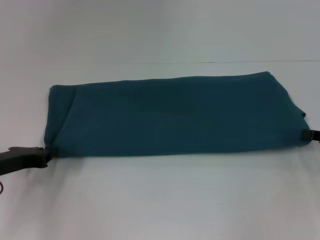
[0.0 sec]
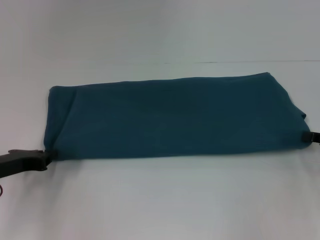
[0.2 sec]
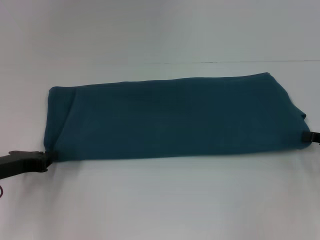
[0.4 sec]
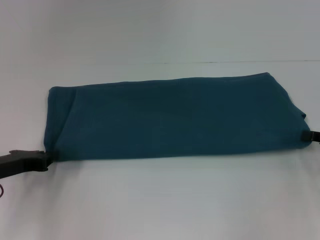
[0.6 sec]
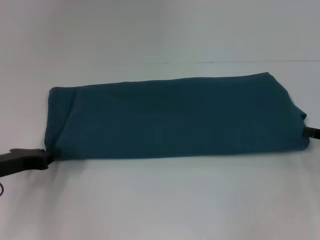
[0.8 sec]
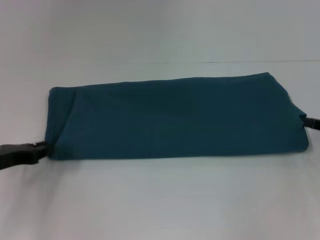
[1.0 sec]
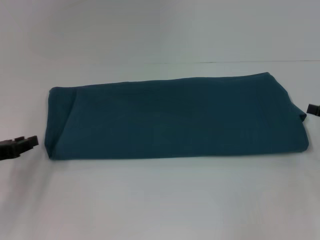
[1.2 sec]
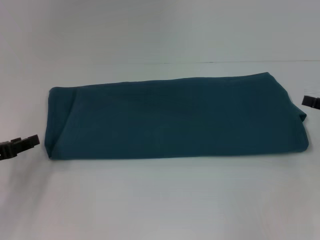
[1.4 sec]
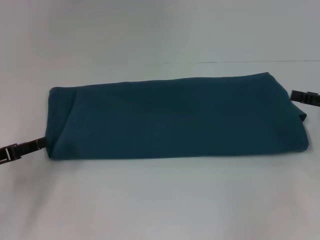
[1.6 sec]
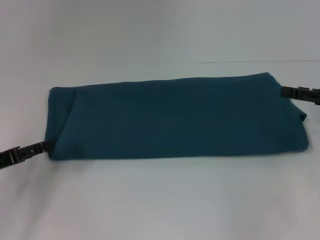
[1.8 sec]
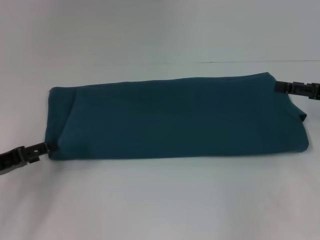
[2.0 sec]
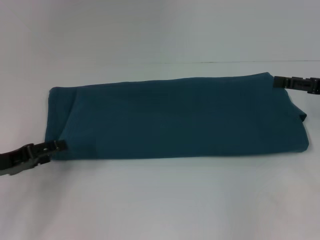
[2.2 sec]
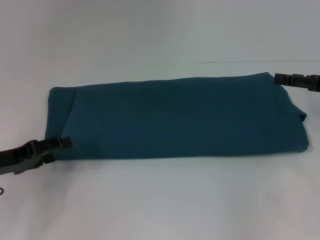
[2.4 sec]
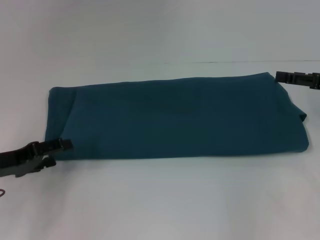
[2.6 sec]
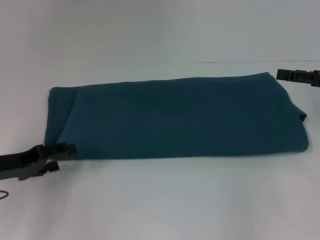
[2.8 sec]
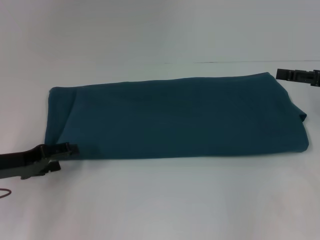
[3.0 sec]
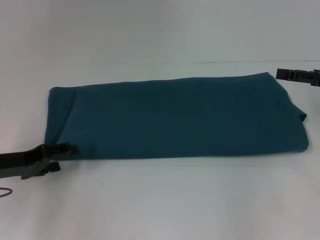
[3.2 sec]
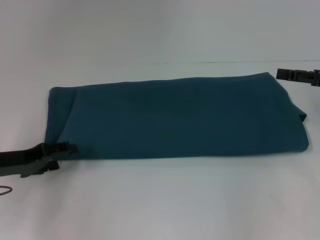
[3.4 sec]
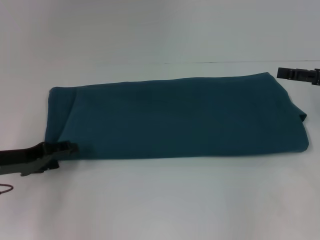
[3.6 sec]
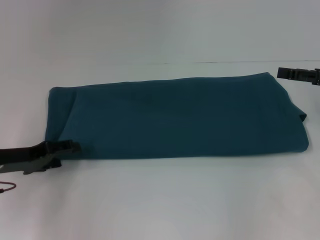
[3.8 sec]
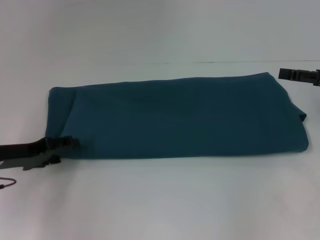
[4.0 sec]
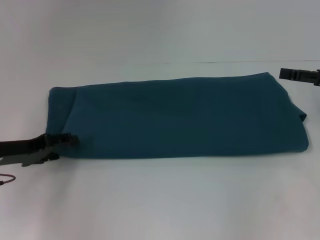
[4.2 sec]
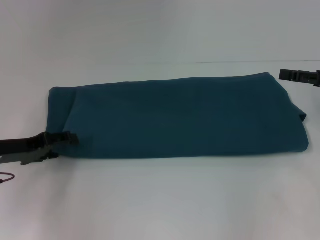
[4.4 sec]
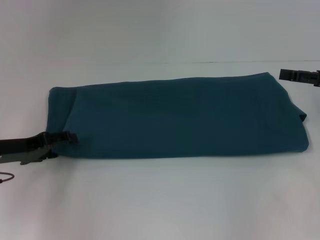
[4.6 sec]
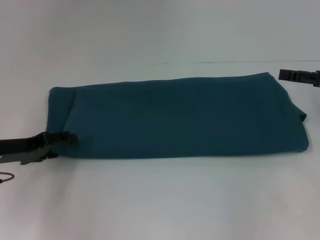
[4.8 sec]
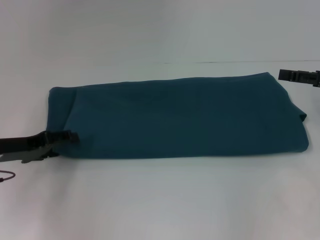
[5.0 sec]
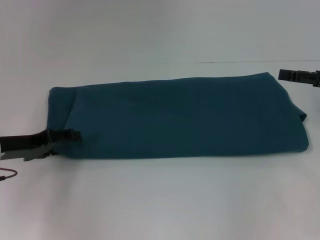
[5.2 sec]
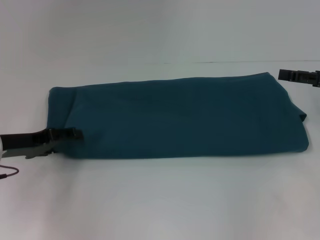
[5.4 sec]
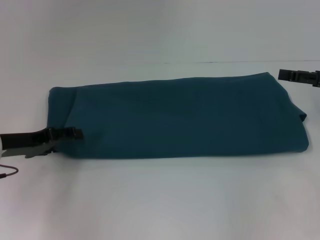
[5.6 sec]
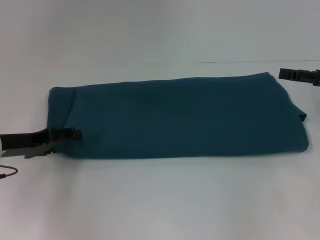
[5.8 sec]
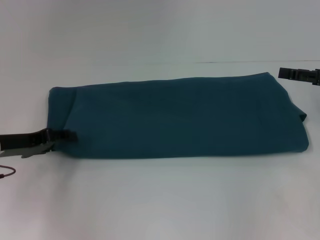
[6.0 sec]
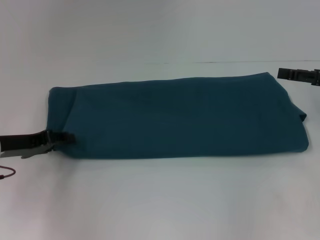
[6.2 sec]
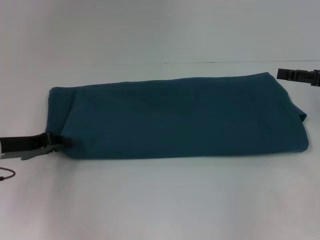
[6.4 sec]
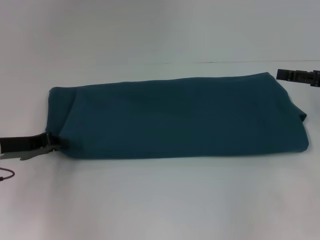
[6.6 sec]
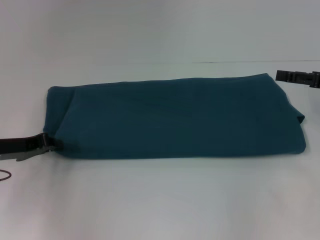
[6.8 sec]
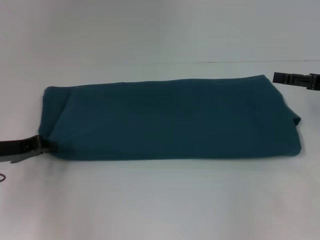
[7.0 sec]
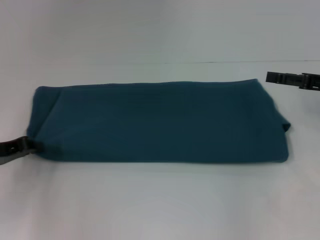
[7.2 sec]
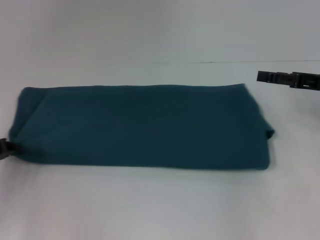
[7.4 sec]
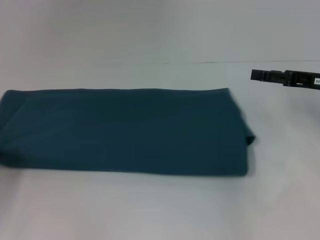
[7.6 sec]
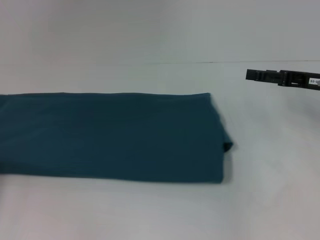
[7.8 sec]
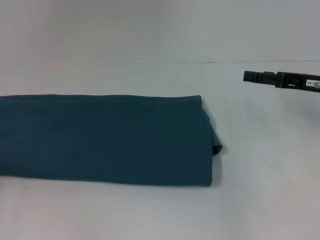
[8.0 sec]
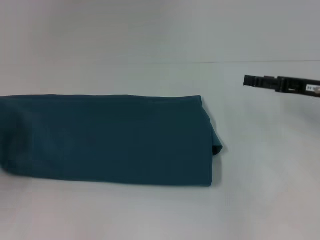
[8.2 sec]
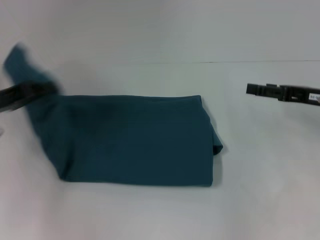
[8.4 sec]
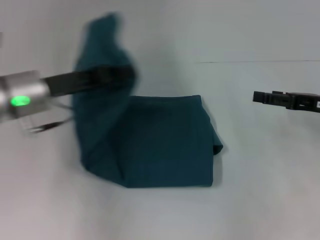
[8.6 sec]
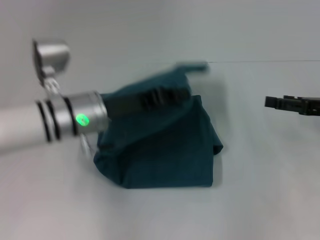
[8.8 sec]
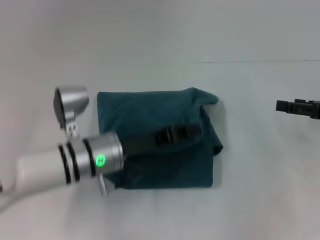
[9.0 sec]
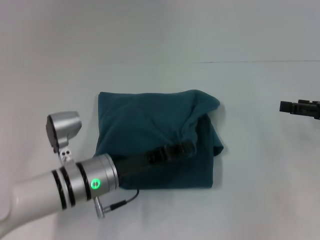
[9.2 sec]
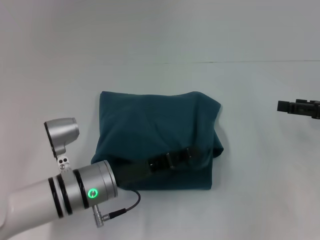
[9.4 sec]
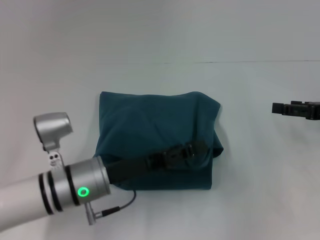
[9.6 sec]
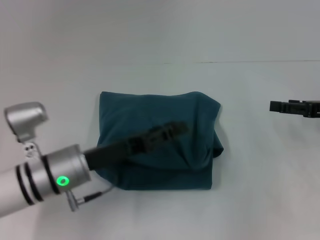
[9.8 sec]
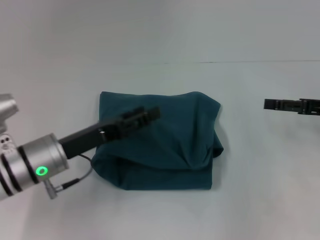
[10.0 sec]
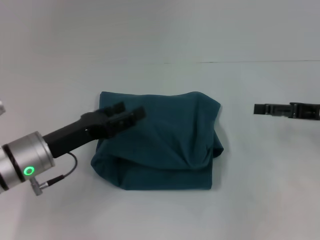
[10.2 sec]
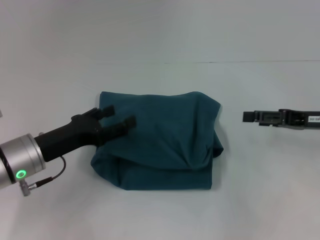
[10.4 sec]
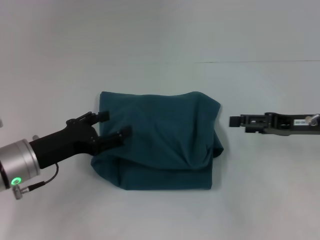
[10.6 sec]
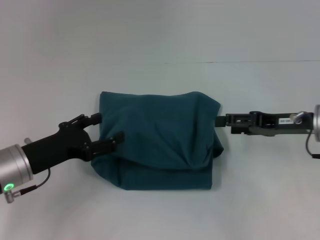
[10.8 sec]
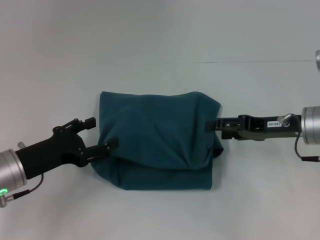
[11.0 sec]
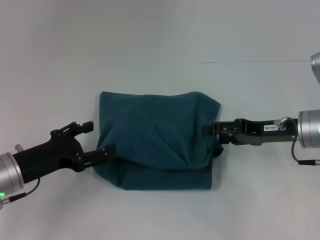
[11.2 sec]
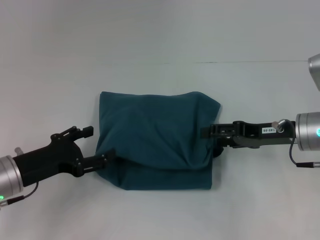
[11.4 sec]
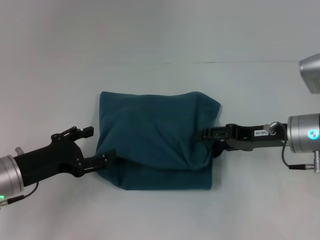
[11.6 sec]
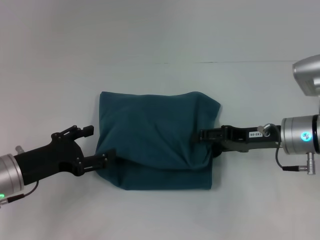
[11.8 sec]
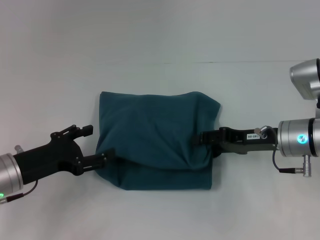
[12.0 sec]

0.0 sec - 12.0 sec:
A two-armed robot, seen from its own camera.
Step, 0.0 sec - 9.4 sec: Fold the clothes to the left.
0.0 sec - 1.6 sec: The right gripper shifts by some 5 cm, and opens. Meanwhile the left gripper opens.
3.0 sec - 4.4 sec: The grippers stay close to where they were, moving slightly.
4.4 sec - 6.0 sec: Both grippers stay put.
6.0 sec - 7.6 sec: The left gripper heads to the left and backward, covering roughly 10 cm, and closes its fingers.
7.6 sec - 9.0 sec: The left gripper heads to the right, covering about 25 cm; the right gripper moves about 5 cm.
9.0 sec - 10.4 sec: The left gripper shifts about 10 cm to the left, and opens its fingers.
10.4 sec - 12.0 sec: The right gripper heads to the left, covering approximately 10 cm.

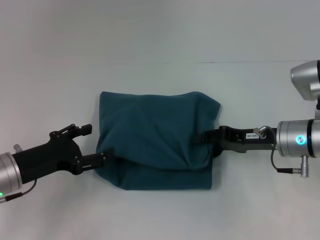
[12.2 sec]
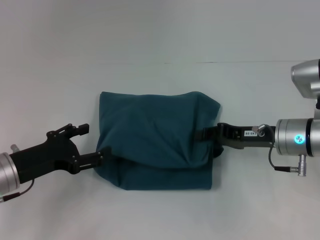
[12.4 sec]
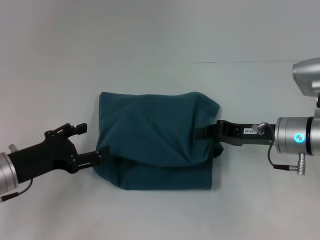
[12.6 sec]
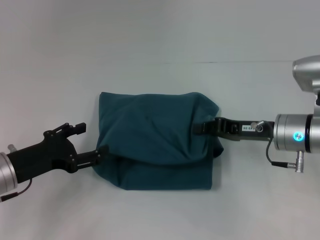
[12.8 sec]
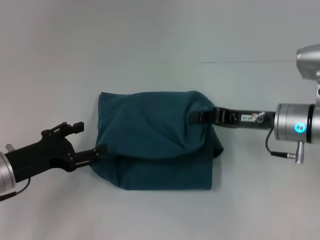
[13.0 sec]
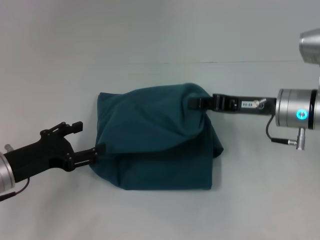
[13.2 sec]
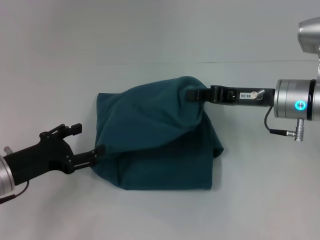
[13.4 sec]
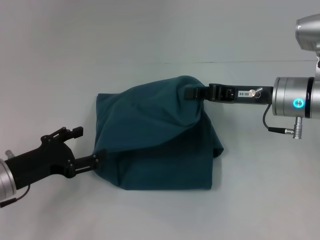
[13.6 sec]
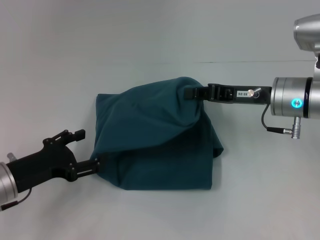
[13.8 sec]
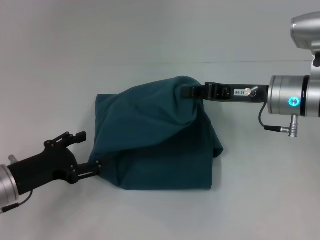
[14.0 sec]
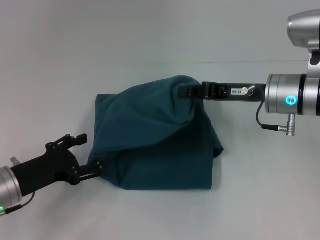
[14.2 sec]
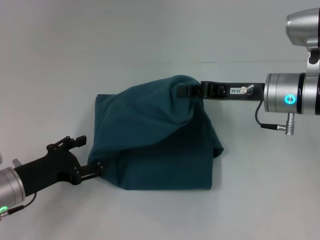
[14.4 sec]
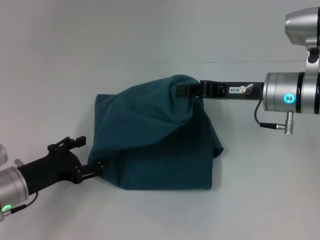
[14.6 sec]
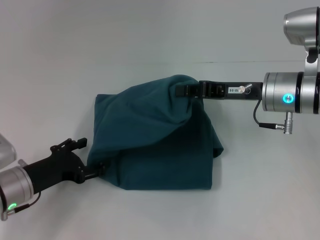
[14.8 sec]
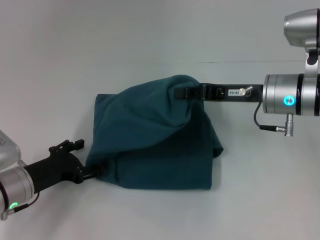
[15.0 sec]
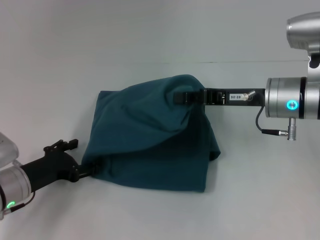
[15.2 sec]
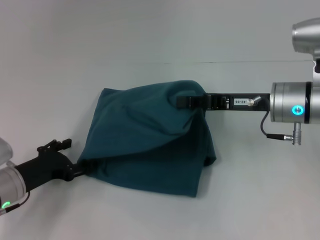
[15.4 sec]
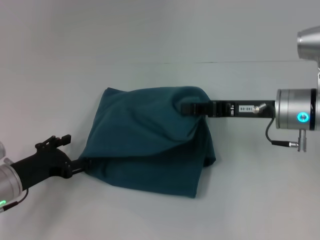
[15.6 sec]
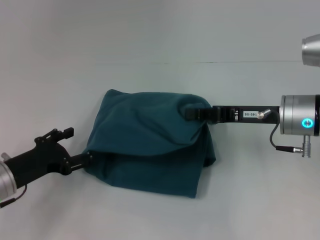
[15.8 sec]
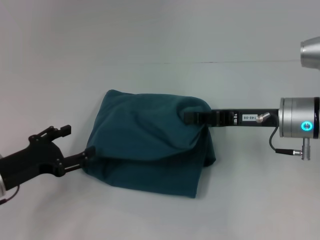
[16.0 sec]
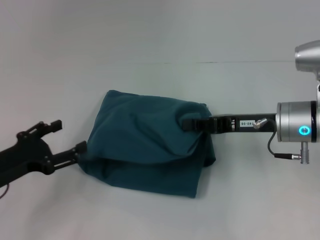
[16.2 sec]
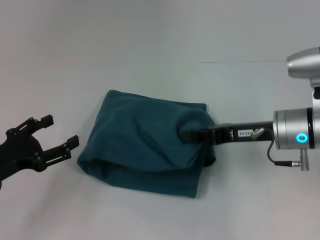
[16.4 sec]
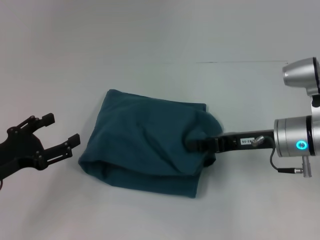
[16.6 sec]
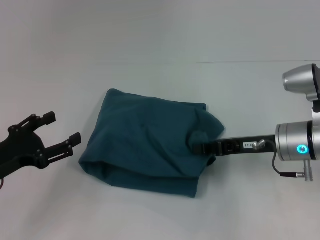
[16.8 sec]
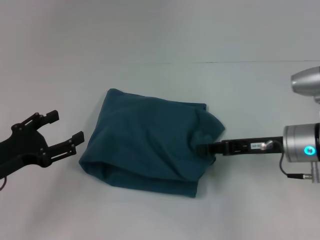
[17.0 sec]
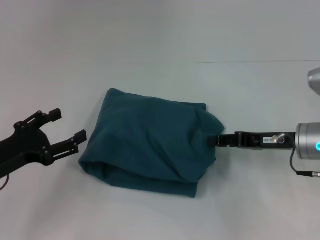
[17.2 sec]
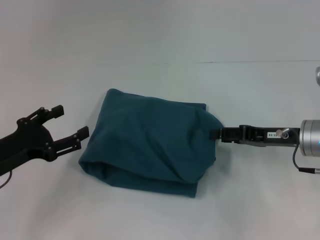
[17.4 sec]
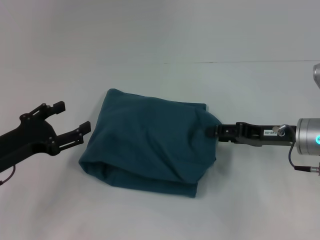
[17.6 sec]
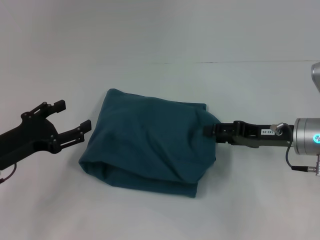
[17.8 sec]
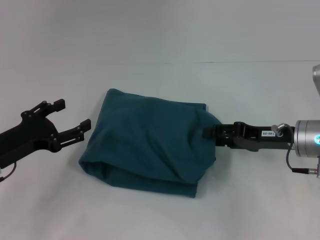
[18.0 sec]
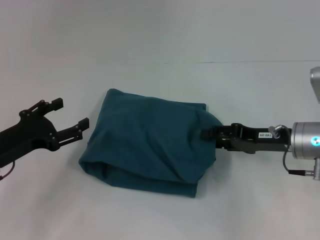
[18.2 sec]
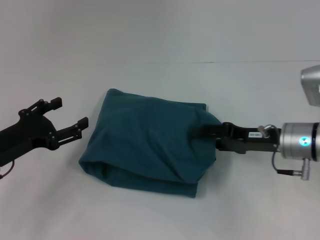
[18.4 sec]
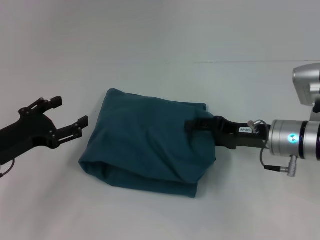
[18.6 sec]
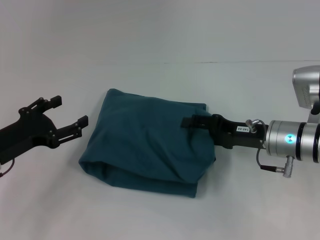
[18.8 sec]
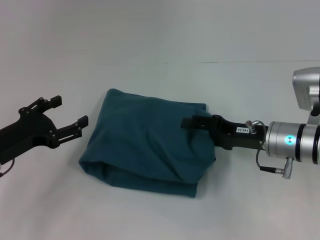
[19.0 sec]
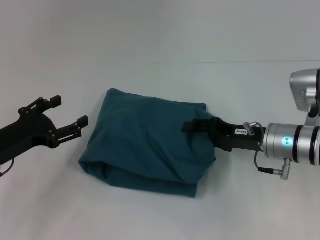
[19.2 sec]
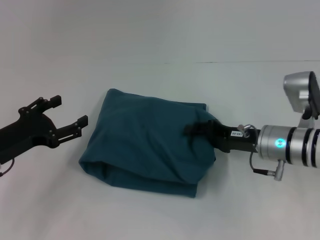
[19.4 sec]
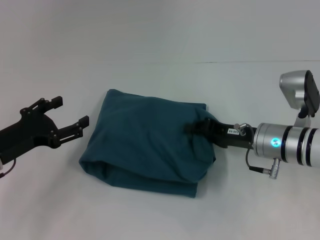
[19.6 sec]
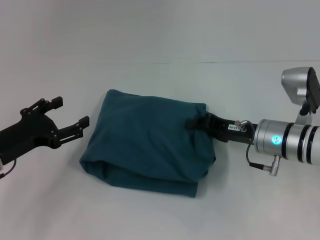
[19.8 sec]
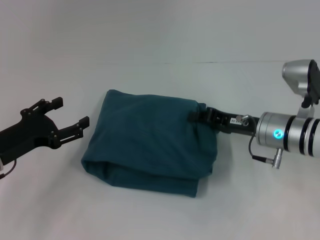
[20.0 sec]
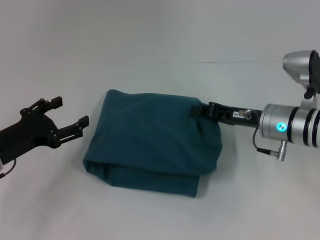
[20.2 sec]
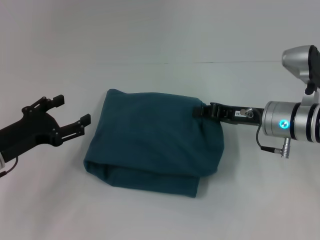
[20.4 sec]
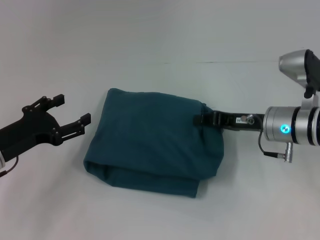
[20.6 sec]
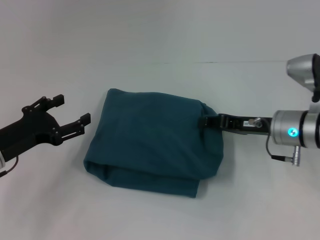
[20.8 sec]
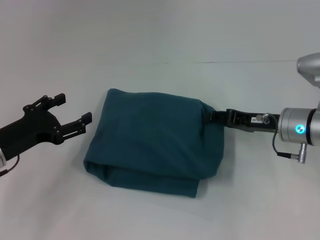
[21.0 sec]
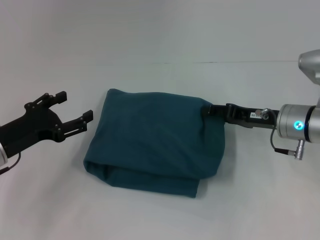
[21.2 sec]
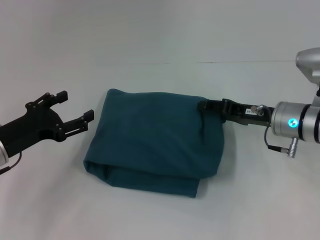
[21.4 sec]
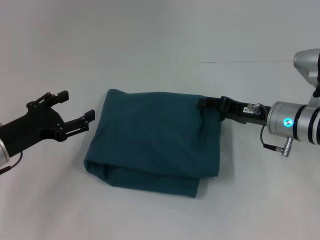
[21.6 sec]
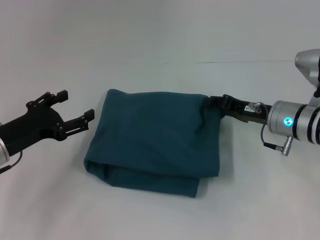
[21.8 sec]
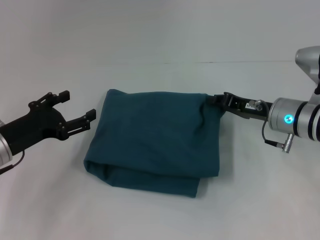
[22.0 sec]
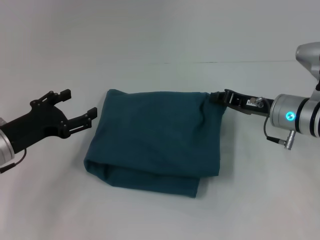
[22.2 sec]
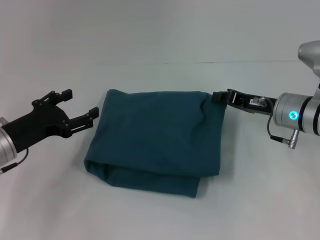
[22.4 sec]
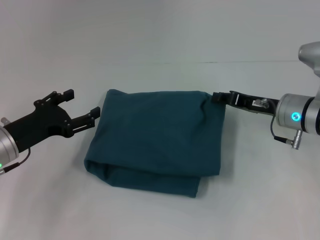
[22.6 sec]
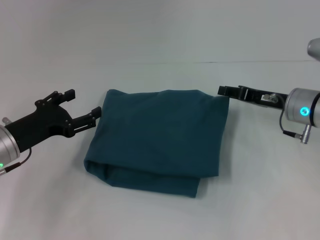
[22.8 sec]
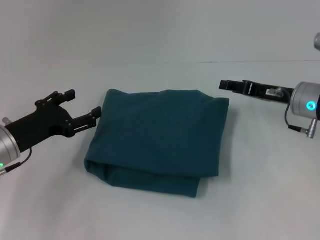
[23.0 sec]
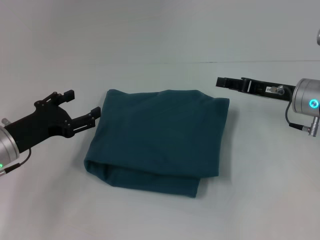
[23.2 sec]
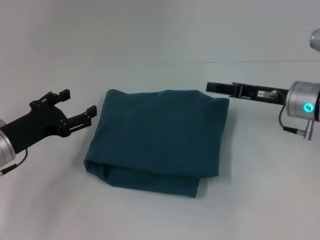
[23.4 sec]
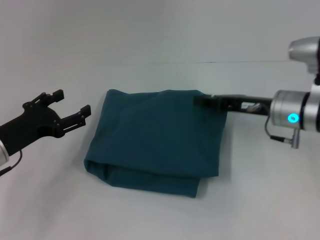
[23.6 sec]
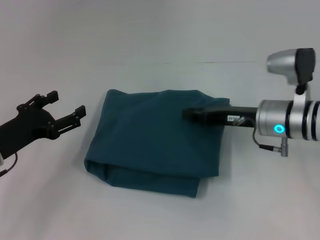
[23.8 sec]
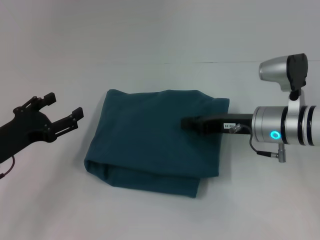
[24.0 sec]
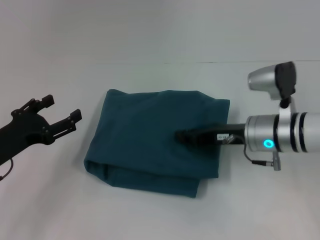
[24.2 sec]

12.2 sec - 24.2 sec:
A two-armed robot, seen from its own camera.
12.2 sec - 13.8 sec: The right gripper shifts approximately 5 cm upward, and closes up.
13.8 sec - 15.2 sec: The grippers move only a little.
15.2 sec - 16.6 sec: The right gripper moves some 5 cm; the left gripper is displaced upward by some 5 cm.
16.6 sec - 18.2 sec: The right gripper opens up.
18.2 sec - 19.8 sec: The right gripper ends up some 5 cm from where it was, and closes.
19.8 sec - 21.2 sec: The right gripper opens up.
21.2 sec - 22.6 sec: The right gripper closes its fingers.
22.6 sec - 24.2 sec: The right gripper travels to the left by about 5 cm, and opens, then closes once more.
